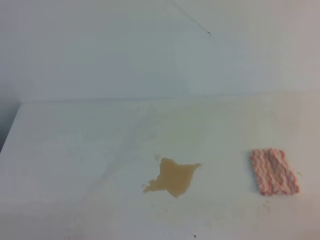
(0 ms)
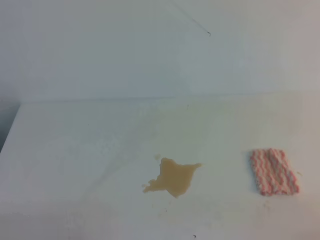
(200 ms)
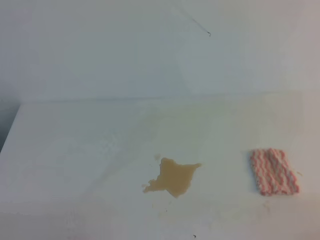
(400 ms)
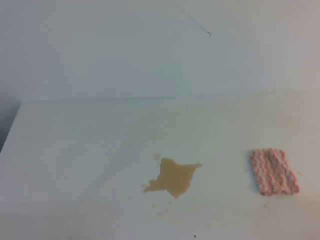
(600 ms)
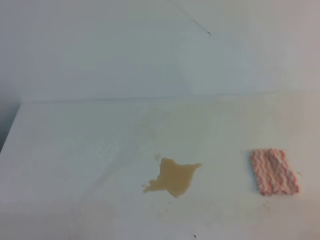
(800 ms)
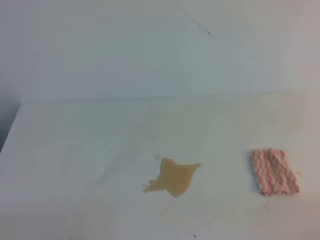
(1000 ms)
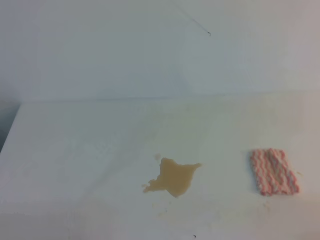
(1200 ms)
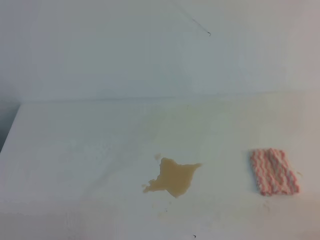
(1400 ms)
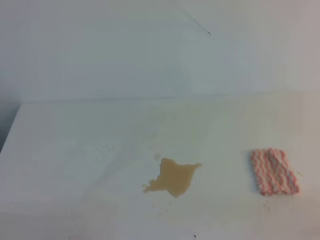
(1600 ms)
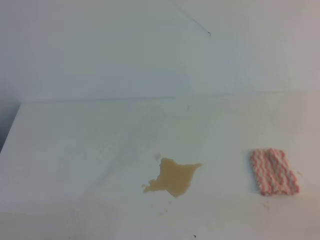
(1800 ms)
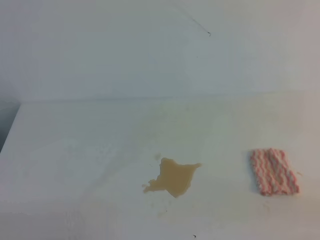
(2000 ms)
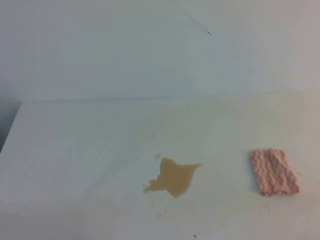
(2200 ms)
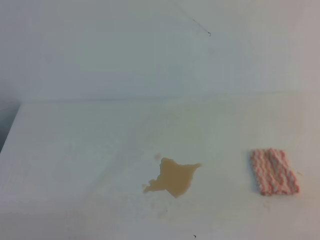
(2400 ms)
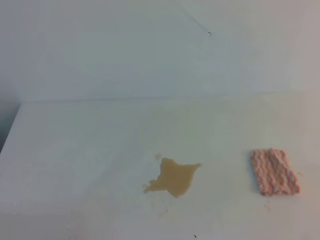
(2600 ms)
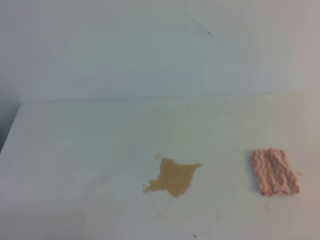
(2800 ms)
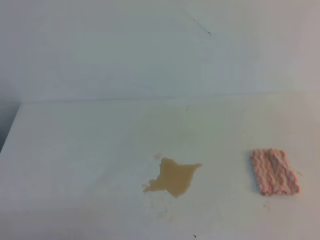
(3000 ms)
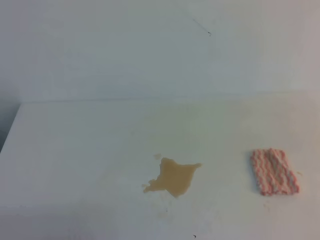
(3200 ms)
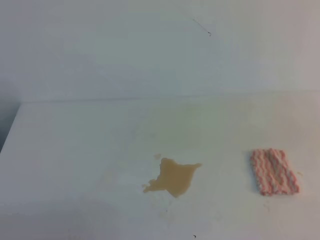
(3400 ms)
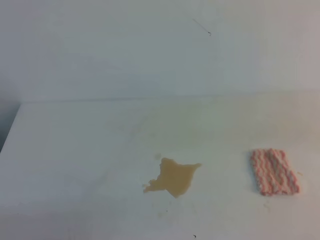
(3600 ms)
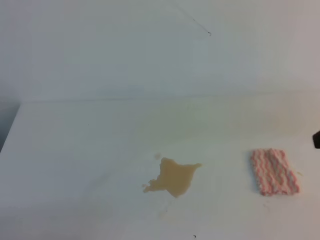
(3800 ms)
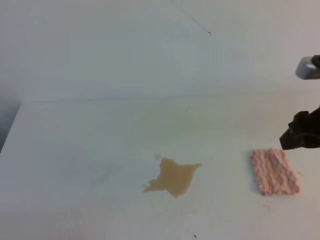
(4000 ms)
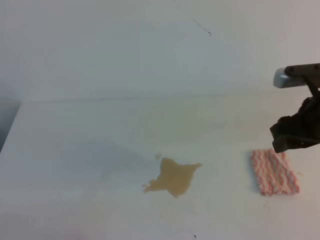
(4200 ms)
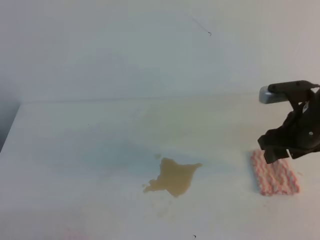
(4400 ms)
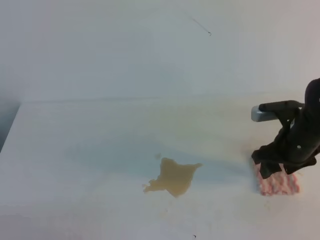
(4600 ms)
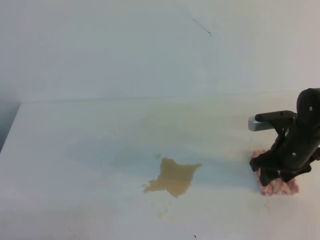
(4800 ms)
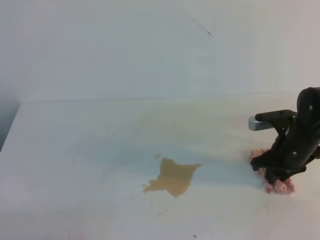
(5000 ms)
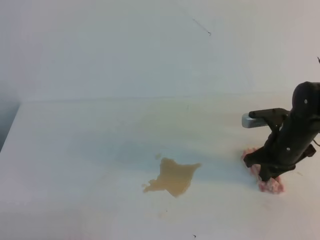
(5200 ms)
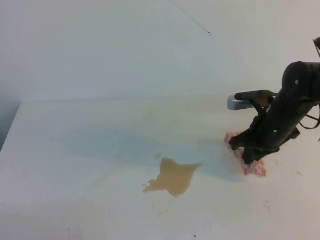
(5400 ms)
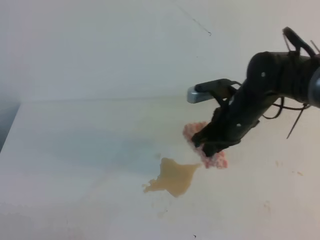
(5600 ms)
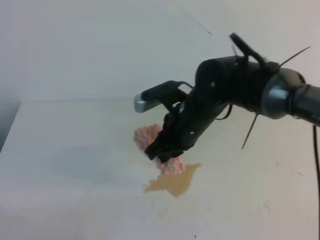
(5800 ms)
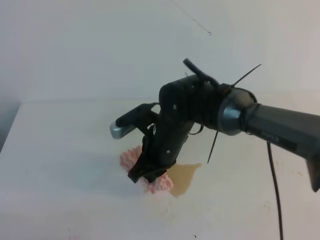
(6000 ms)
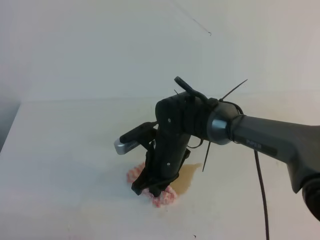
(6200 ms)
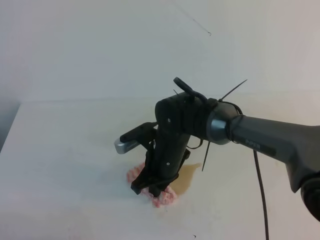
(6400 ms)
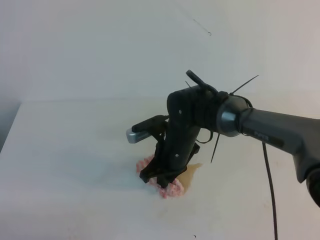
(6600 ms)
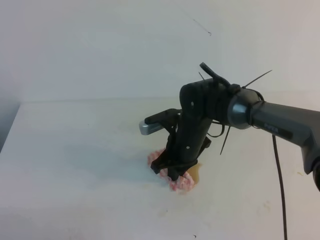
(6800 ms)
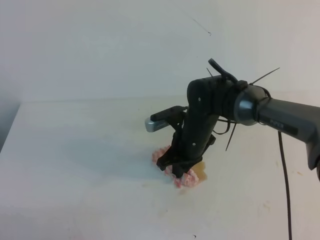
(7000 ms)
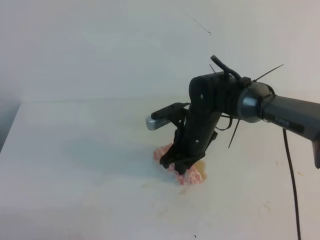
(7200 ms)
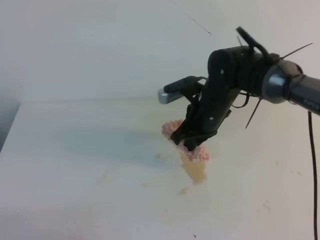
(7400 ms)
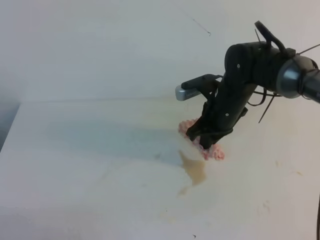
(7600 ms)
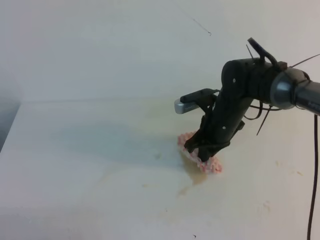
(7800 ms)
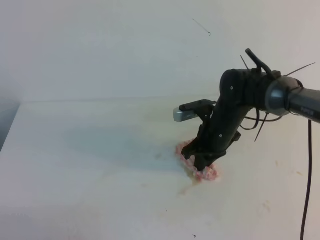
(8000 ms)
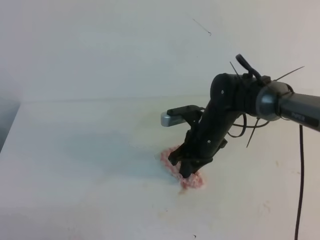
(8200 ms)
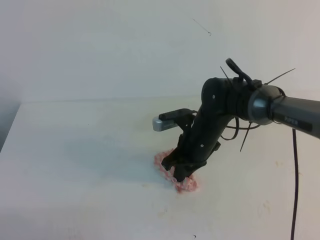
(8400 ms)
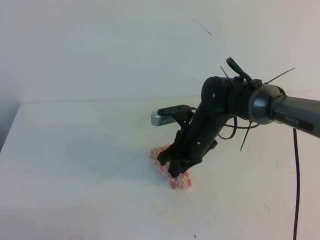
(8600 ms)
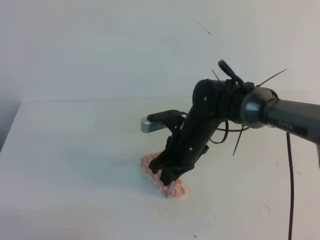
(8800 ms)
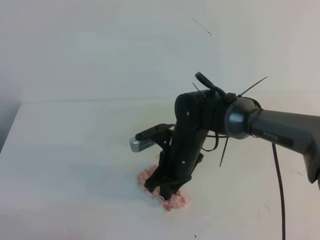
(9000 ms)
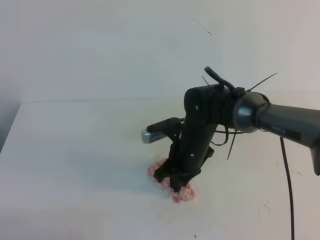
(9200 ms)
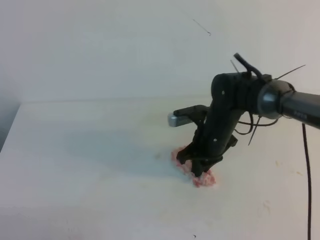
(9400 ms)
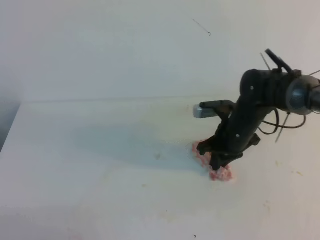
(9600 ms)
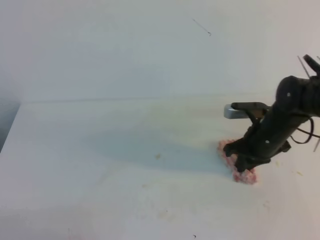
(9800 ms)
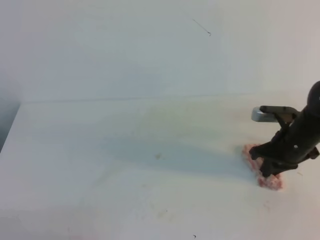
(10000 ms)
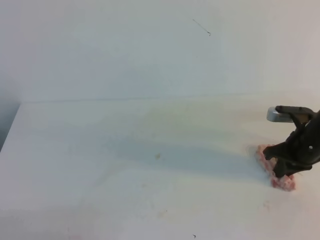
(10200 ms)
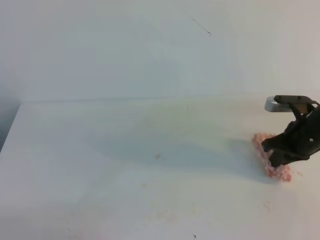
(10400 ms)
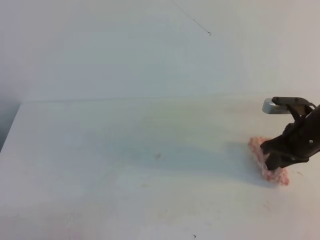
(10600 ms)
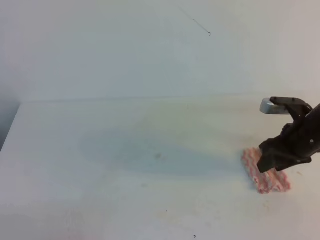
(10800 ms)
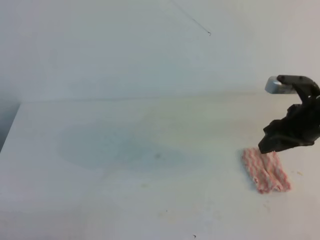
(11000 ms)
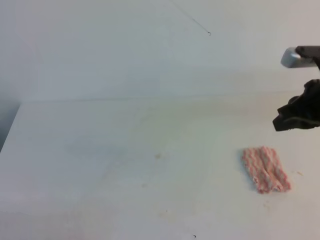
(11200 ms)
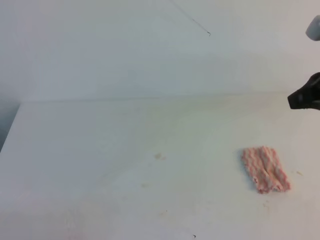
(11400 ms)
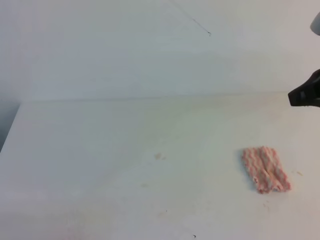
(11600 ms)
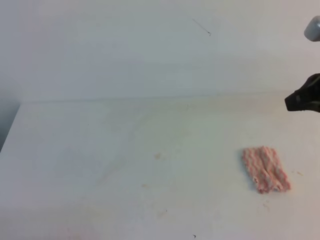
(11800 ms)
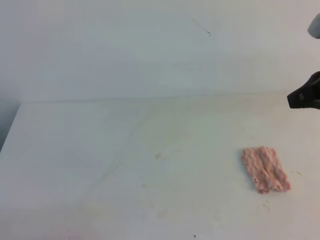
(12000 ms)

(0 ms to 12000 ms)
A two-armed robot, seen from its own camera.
3000 ms - 4400 ms: The right gripper goes some 25 cm forward and to the left, and opens up.
4400 ms - 6000 ms: The right gripper goes approximately 20 cm to the left, and closes.
6000 ms - 7600 ms: The right gripper goes about 10 cm to the right and forward.
7600 ms - 9000 ms: The right gripper goes roughly 5 cm to the left.
9000 ms - 10400 ms: The right gripper heads to the right, covering approximately 20 cm.
10400 ms - 12000 ms: The right gripper goes roughly 20 cm upward and backward, and opens and closes again.

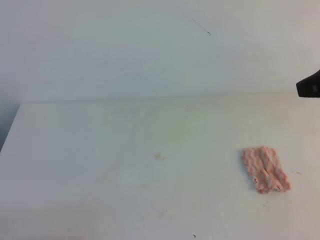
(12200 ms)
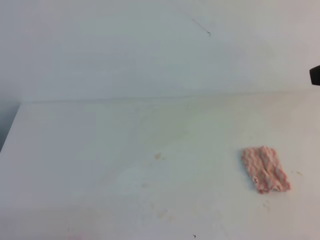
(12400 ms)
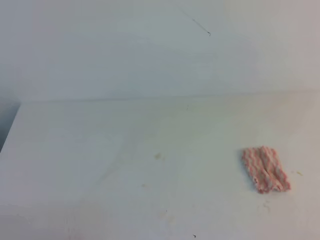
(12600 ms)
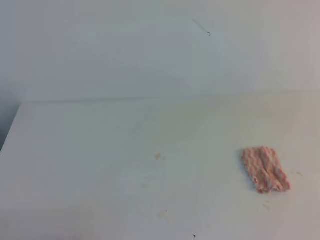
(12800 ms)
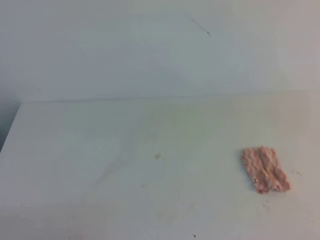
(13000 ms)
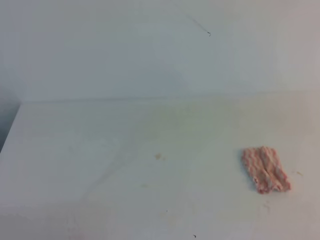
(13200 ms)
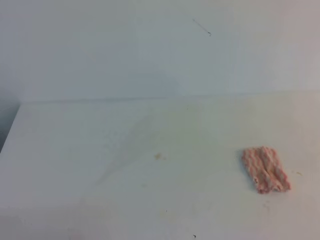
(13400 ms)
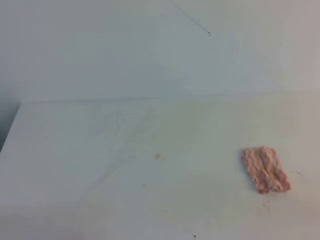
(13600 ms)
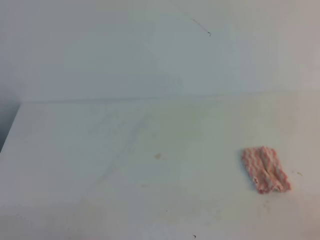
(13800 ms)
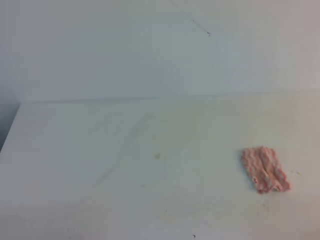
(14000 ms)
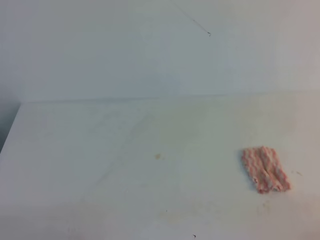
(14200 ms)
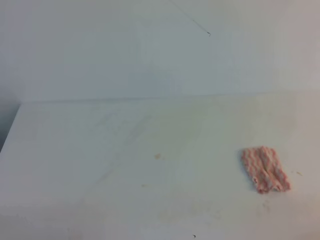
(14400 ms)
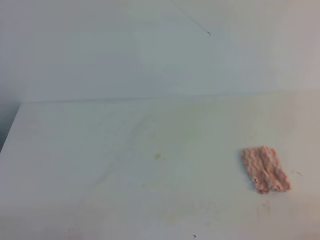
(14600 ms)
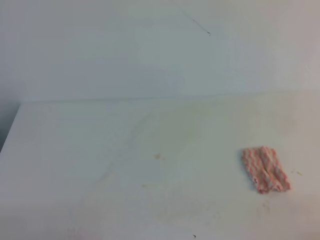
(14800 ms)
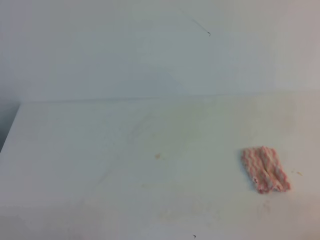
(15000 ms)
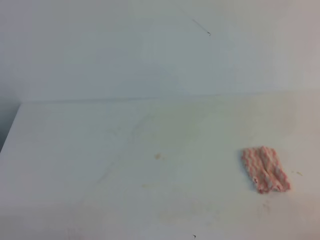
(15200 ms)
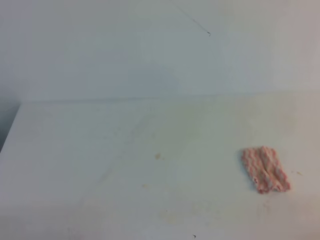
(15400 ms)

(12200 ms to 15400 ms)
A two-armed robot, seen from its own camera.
12200 ms - 13800 ms: The right gripper is displaced backward and downward by about 25 cm.
